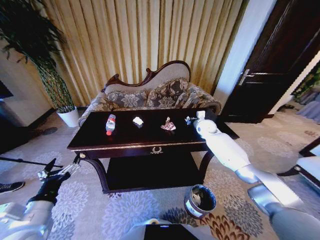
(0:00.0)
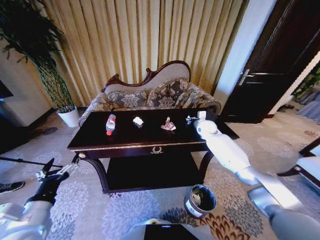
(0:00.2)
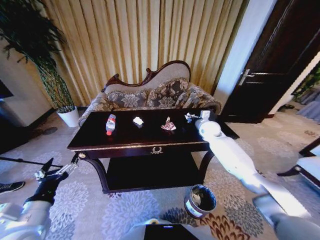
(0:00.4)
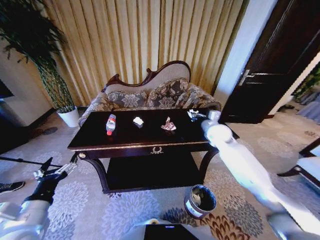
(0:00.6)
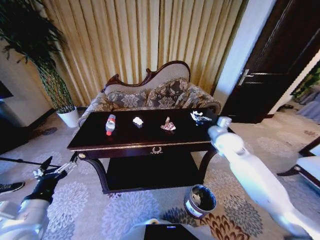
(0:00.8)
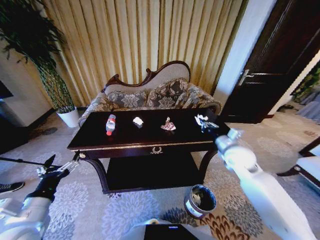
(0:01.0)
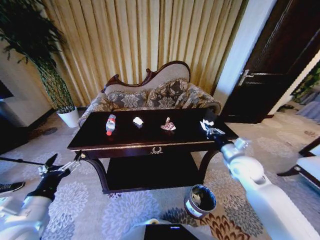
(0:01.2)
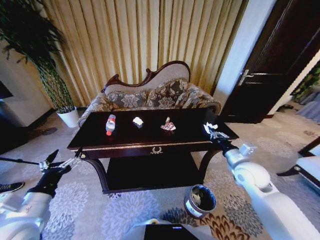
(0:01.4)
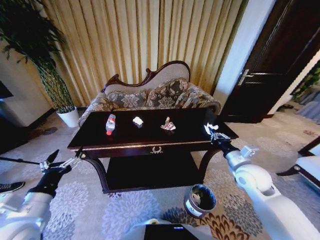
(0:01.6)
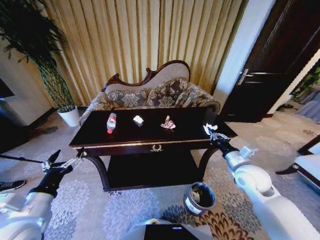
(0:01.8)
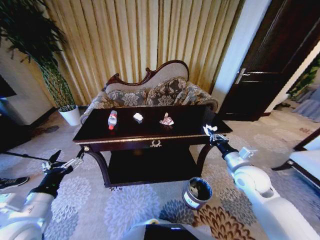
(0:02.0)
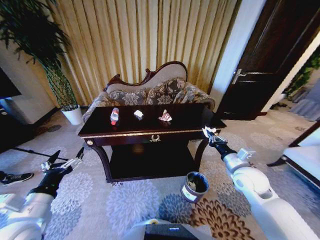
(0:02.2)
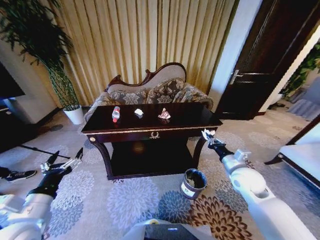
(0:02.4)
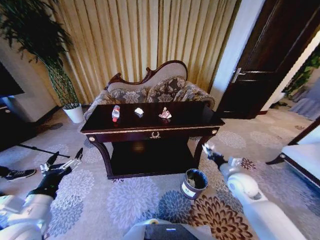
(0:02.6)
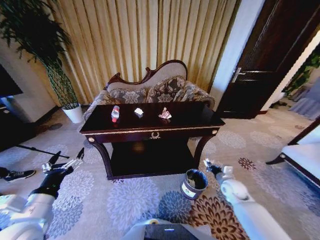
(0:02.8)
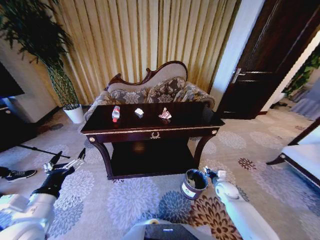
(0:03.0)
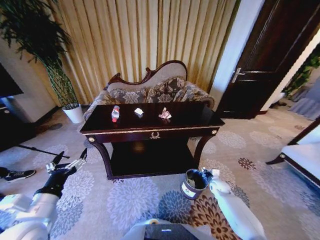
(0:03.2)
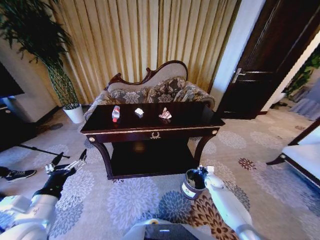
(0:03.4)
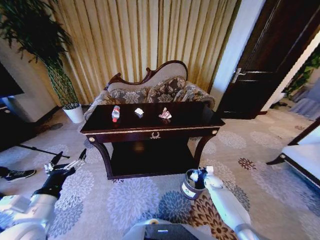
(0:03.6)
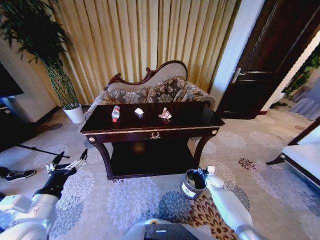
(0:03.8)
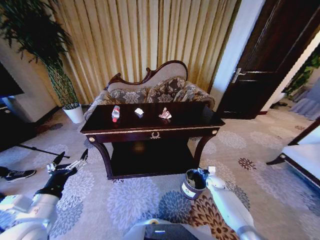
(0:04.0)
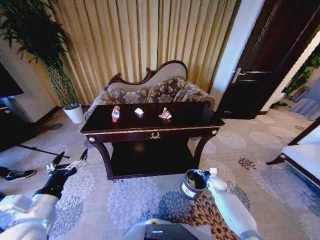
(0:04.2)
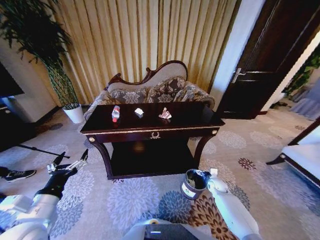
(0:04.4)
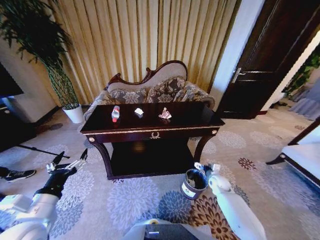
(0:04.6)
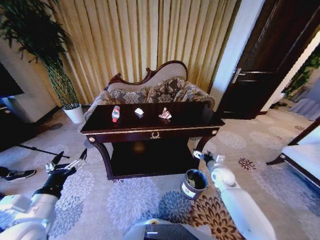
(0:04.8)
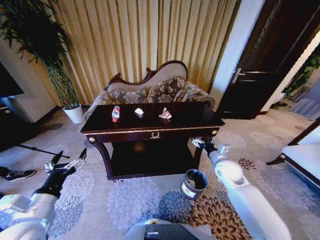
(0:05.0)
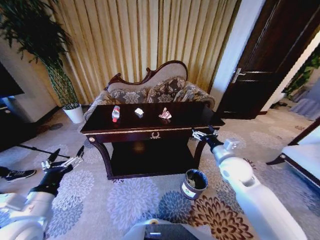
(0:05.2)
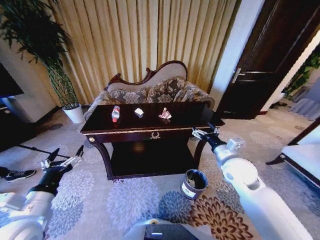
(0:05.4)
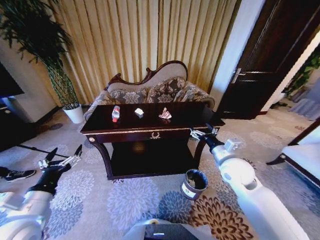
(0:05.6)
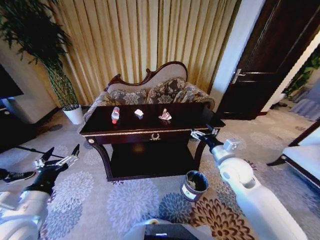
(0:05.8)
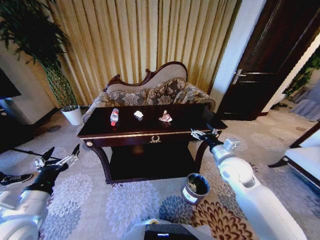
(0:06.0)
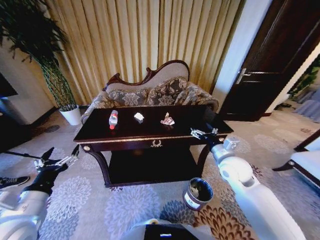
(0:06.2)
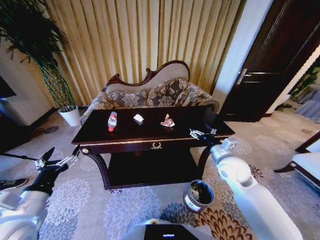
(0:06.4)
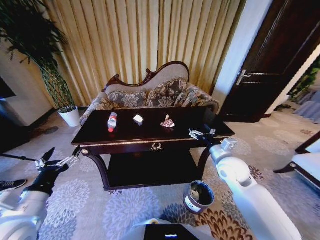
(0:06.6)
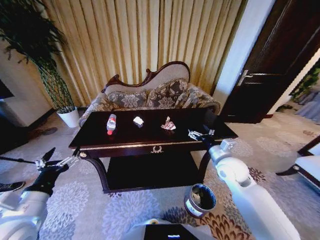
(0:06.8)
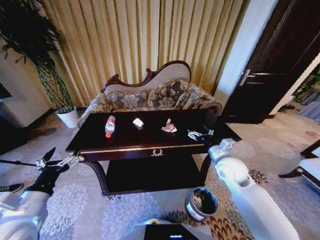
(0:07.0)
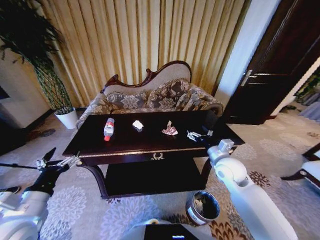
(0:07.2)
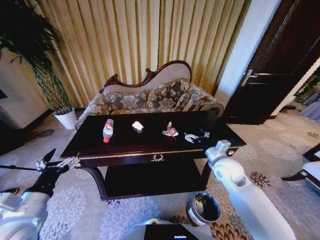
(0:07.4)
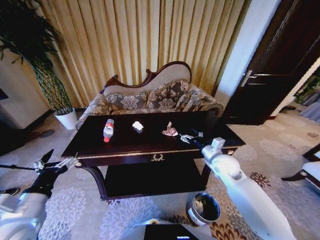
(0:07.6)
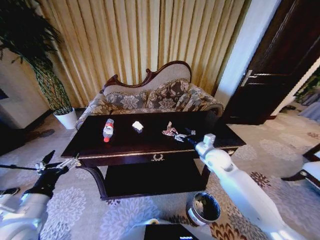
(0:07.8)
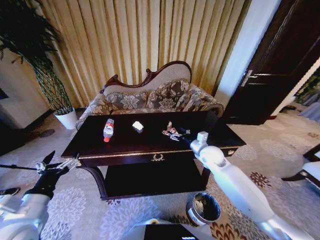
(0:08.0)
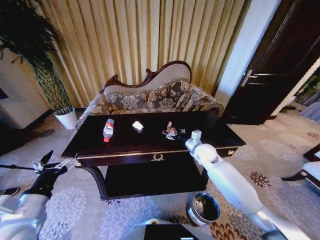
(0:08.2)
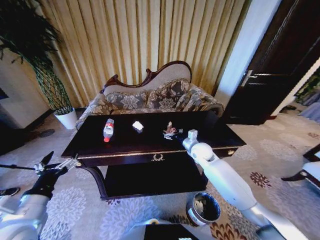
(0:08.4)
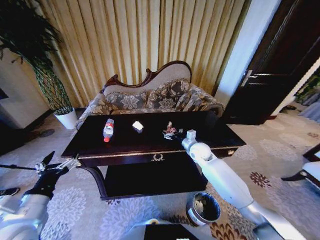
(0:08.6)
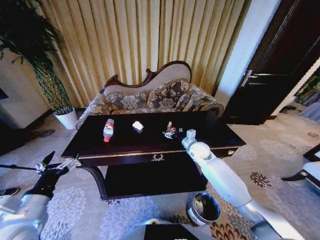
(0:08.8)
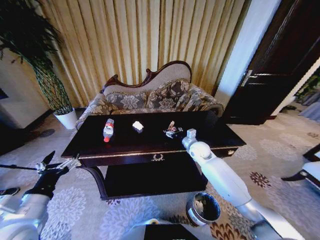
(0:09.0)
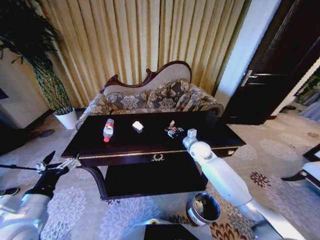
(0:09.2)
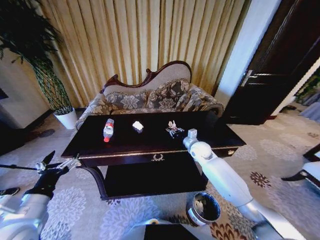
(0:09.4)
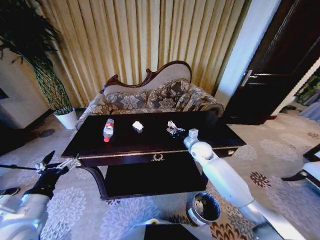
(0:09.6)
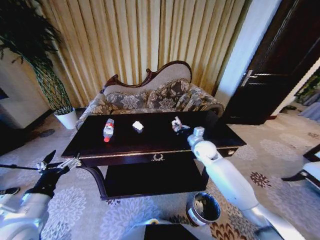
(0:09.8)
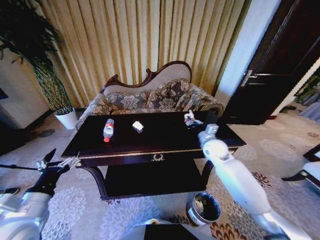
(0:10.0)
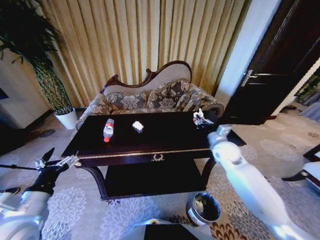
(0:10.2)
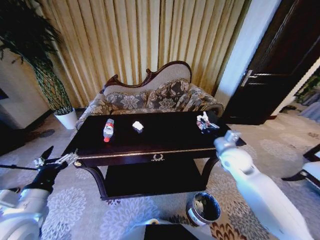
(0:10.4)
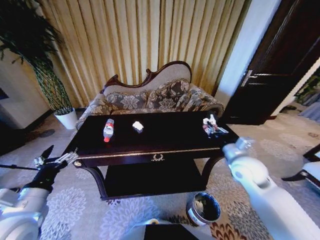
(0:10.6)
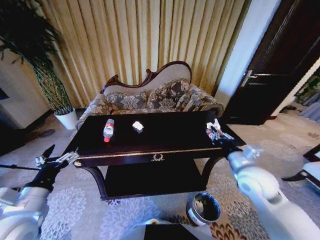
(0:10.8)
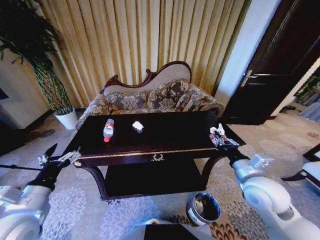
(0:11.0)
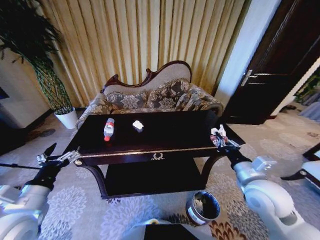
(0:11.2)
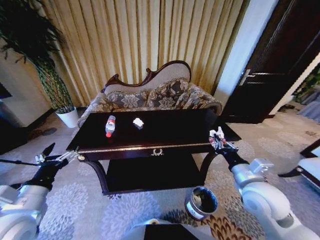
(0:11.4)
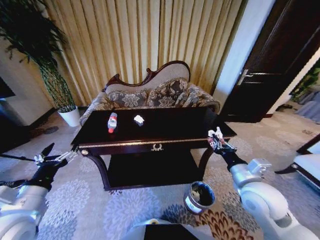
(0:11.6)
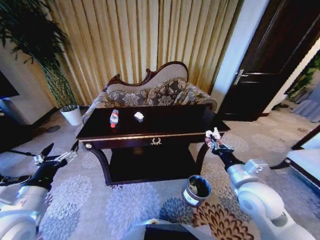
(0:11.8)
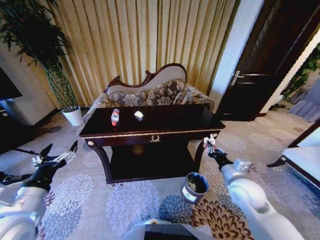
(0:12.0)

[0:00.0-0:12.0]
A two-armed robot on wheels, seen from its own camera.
Task of the whole recording: Move to the front of the table and place the trash on the table into the trash bin.
0:00.0 to 0:01.6: The right gripper travels backward by about 30 cm.
0:01.6 to 0:03.0: The right gripper goes approximately 25 cm downward.
0:03.0 to 0:04.4: The right gripper moves approximately 5 cm, and opens.
0:04.4 to 0:06.0: The right gripper goes some 30 cm upward.
0:07.6 to 0:09.0: The right gripper is displaced forward and to the left by approximately 10 cm.
0:09.0 to 0:10.4: The right gripper heads backward, to the right and upward, covering some 15 cm, and closes.
0:10.4 to 0:12.0: The right gripper shifts some 10 cm backward.

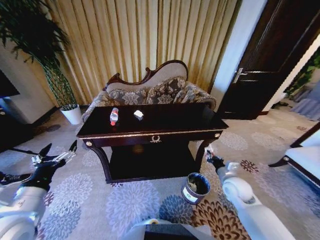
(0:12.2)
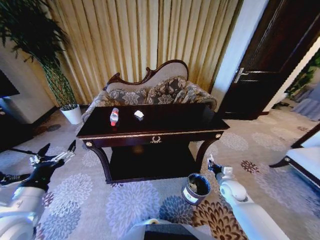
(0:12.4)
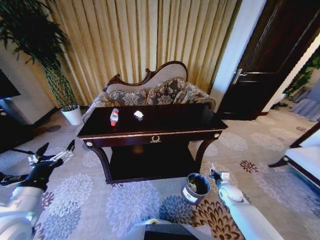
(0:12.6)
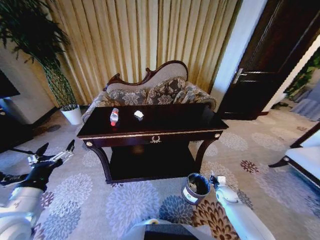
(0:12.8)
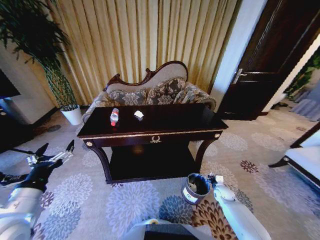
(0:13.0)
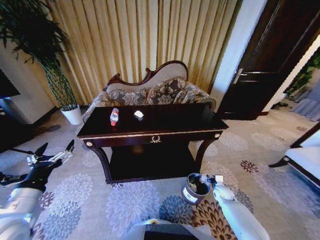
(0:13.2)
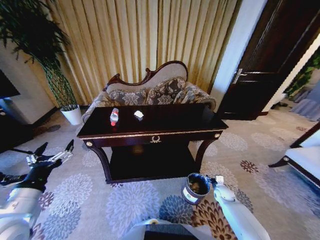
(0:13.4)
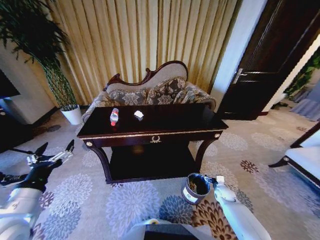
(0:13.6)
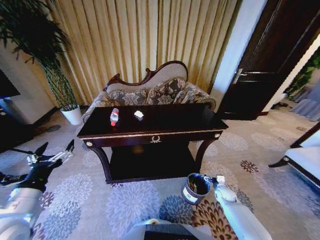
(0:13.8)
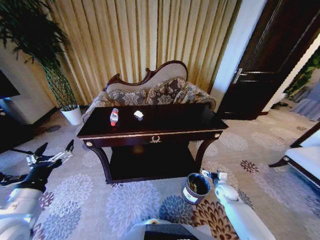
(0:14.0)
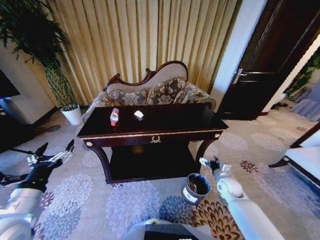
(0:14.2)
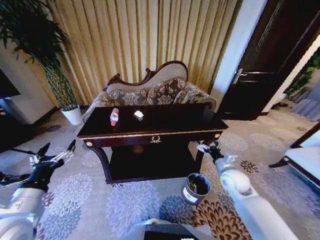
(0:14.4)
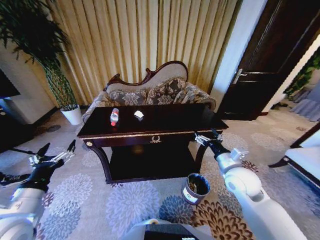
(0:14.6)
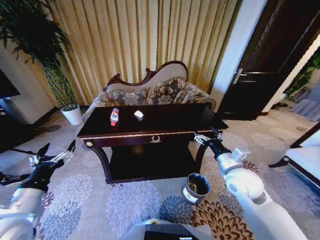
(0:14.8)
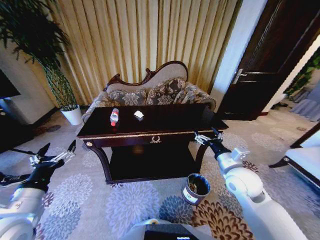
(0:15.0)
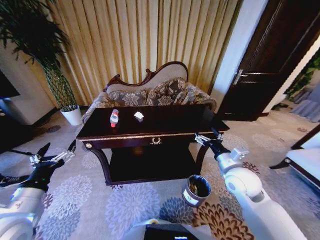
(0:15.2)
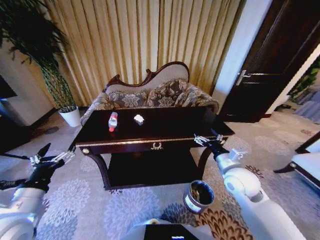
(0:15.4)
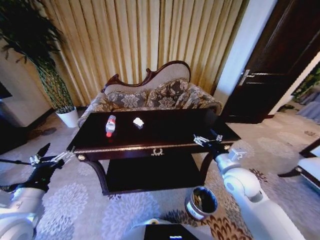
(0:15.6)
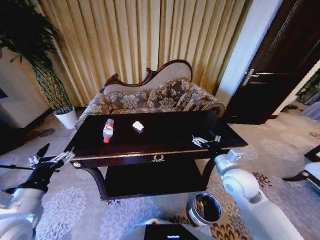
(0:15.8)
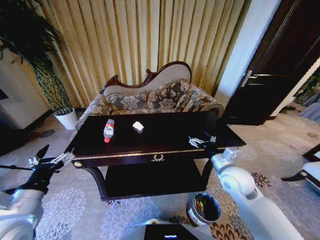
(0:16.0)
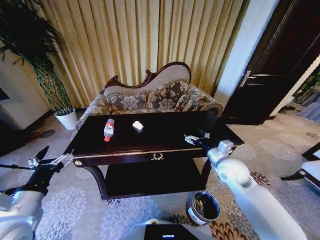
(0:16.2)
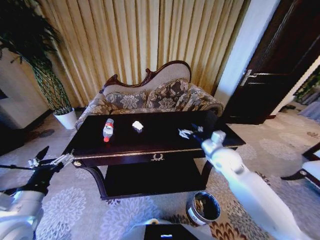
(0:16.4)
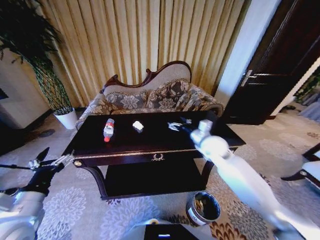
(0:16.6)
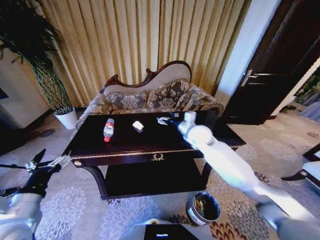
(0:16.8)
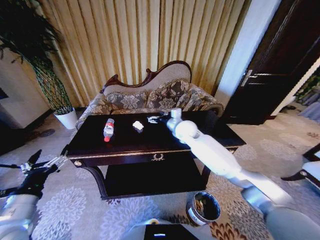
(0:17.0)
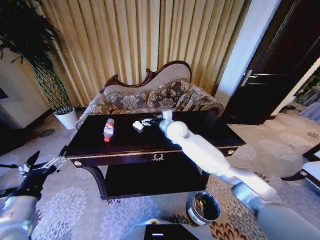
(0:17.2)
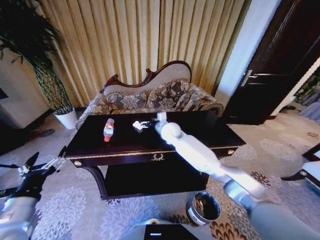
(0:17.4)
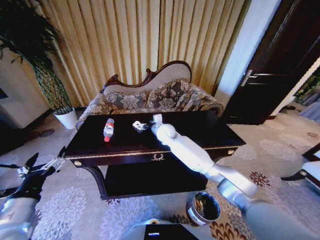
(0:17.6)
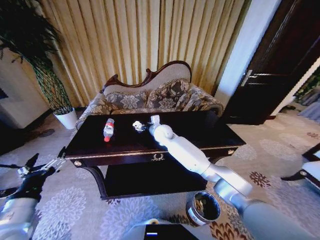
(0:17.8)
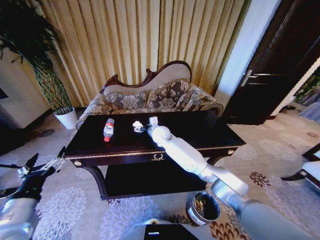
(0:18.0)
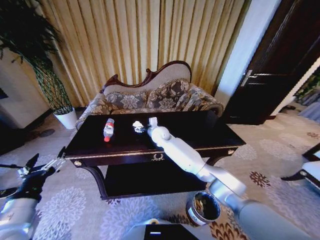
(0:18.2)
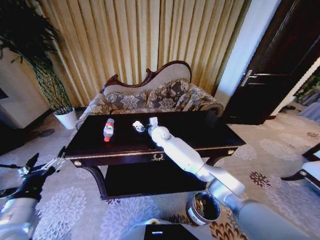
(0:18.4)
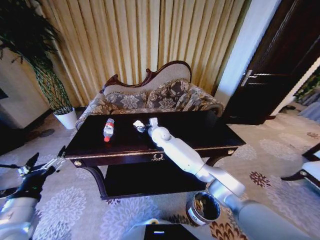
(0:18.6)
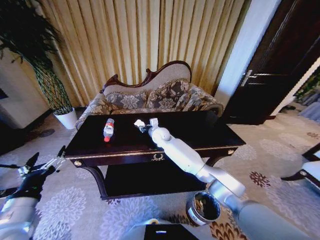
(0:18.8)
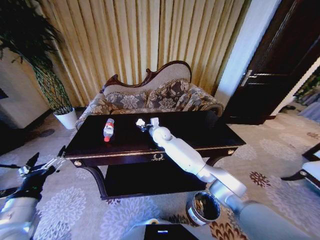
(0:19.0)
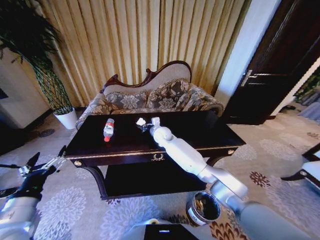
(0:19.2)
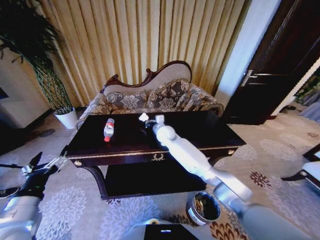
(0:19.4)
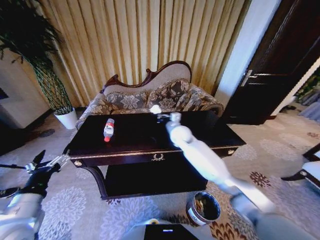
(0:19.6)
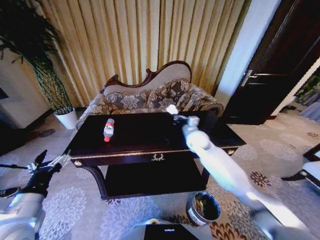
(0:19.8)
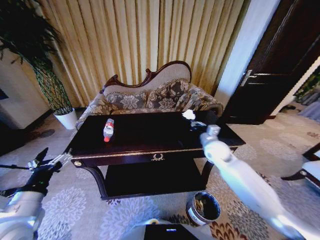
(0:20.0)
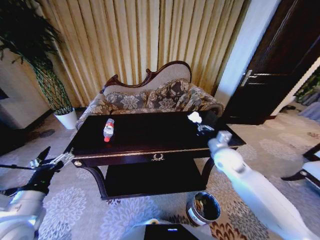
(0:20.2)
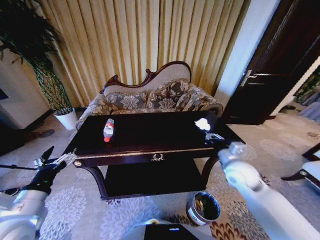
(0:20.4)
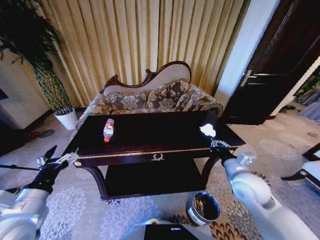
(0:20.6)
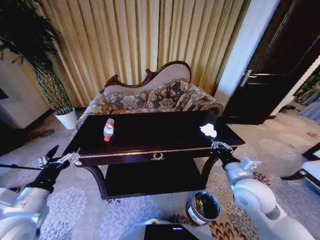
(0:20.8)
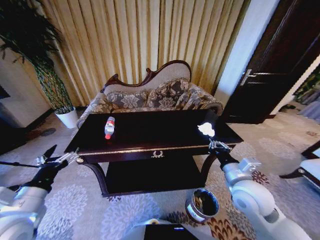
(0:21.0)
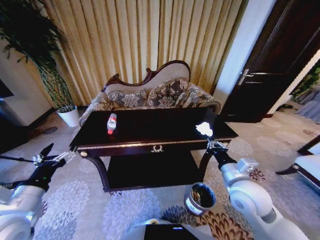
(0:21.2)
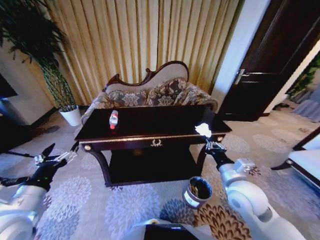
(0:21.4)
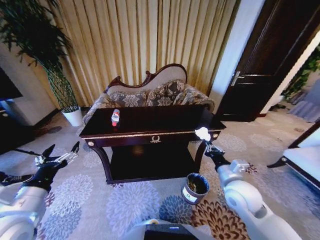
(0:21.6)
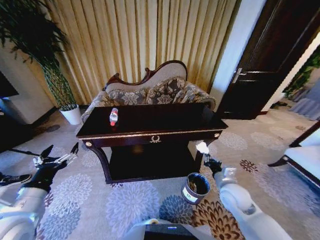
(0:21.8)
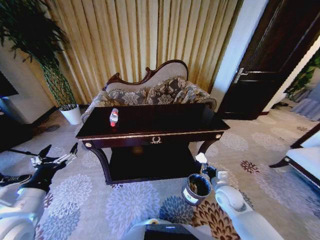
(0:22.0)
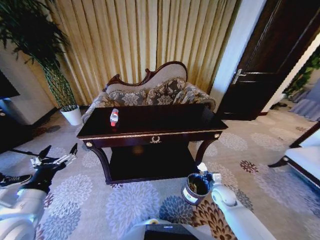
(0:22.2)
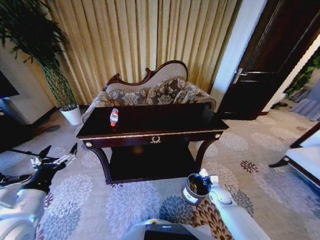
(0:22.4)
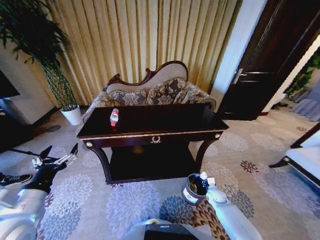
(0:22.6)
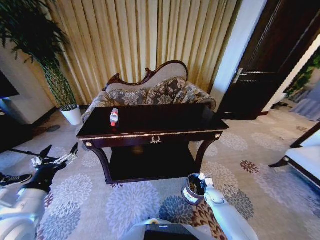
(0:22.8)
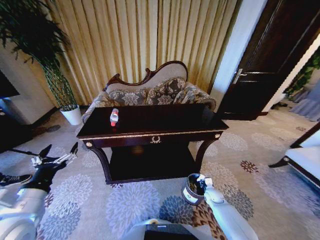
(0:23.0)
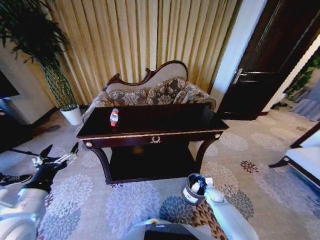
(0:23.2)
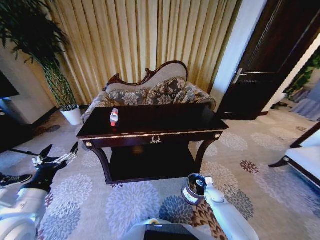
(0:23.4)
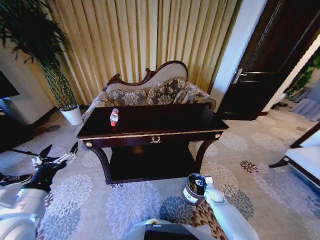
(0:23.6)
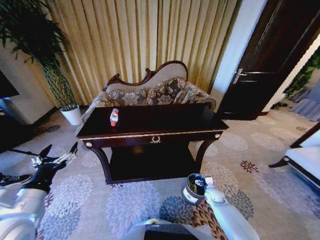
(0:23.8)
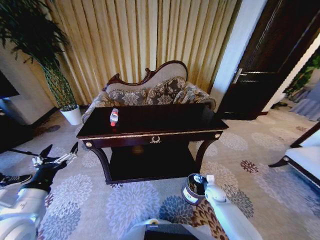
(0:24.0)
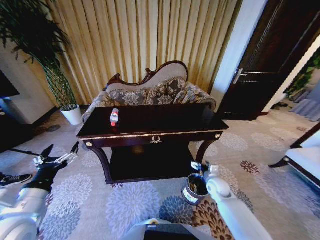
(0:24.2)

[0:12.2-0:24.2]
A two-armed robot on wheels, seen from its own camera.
Task of the whole recording: Move to the front of the table and place the trash on the table into the trash bin.
0:12.2 to 0:13.8: The right gripper heads downward, covering some 20 cm, and opens up.
0:13.8 to 0:15.2: The right gripper travels upward by about 30 cm.
0:15.2 to 0:16.6: The right gripper shifts some 15 cm forward and to the left.
0:16.6 to 0:18.2: The right gripper moves to the left and forward, approximately 25 cm.
0:18.2 to 0:19.8: The right gripper goes about 20 cm to the right, and closes up.
0:19.8 to 0:21.2: The right gripper goes about 25 cm backward.
0:21.2 to 0:22.6: The right gripper is displaced downward by about 30 cm.
0:22.6 to 0:24.2: The right gripper travels upward by about 10 cm, and opens its fingers.
